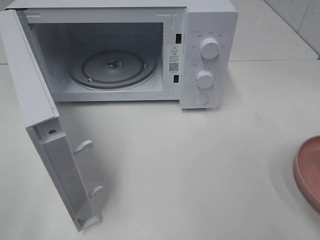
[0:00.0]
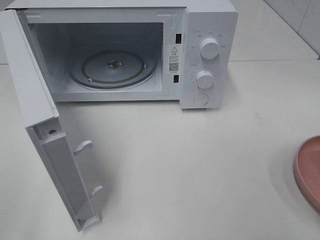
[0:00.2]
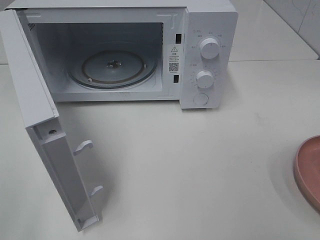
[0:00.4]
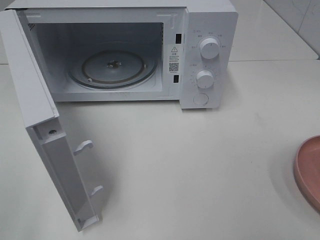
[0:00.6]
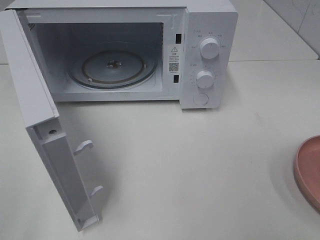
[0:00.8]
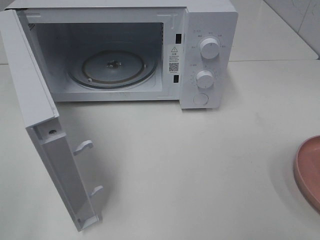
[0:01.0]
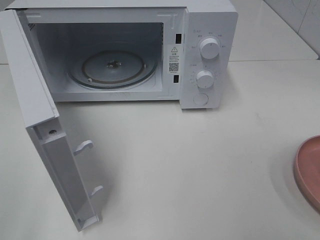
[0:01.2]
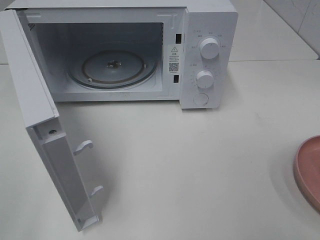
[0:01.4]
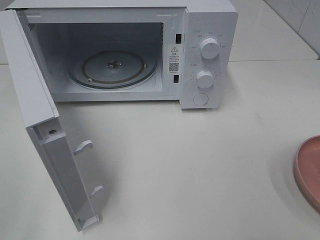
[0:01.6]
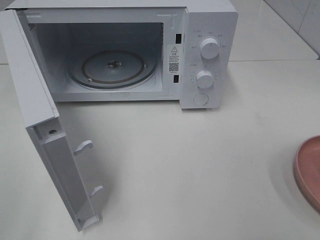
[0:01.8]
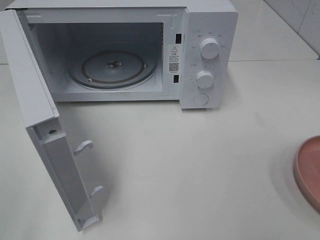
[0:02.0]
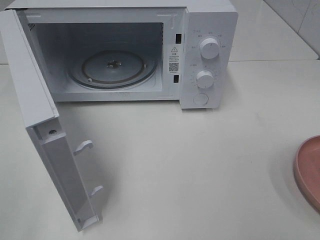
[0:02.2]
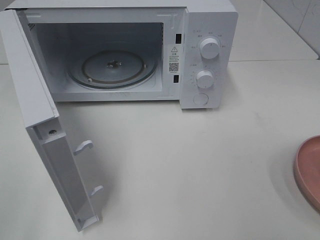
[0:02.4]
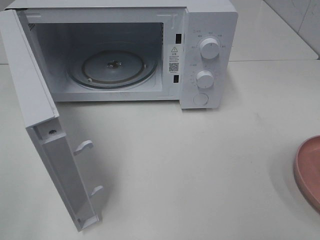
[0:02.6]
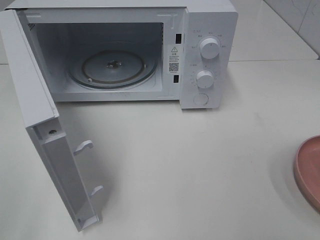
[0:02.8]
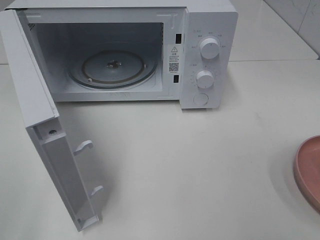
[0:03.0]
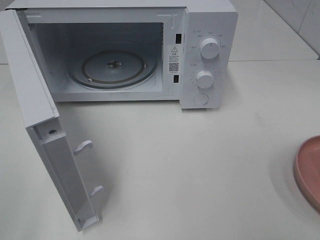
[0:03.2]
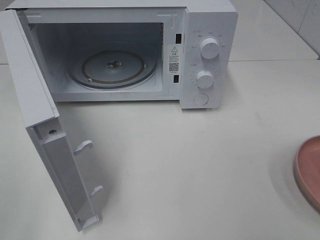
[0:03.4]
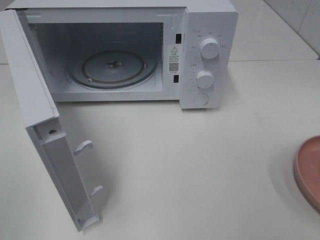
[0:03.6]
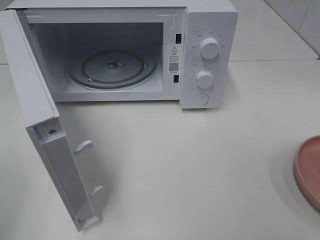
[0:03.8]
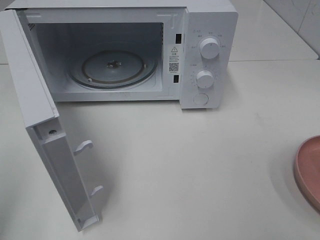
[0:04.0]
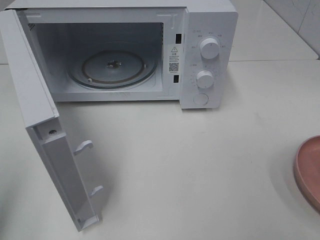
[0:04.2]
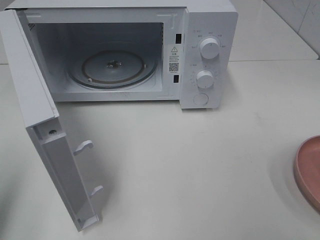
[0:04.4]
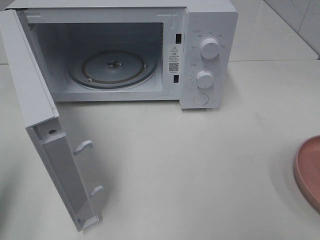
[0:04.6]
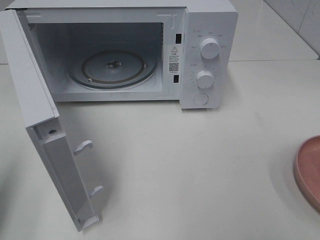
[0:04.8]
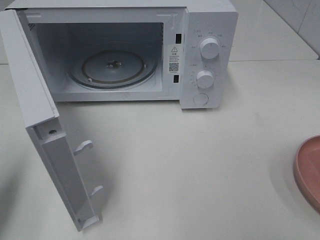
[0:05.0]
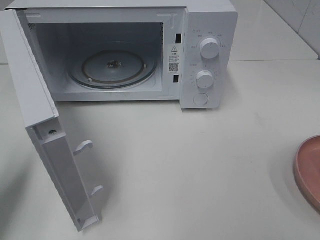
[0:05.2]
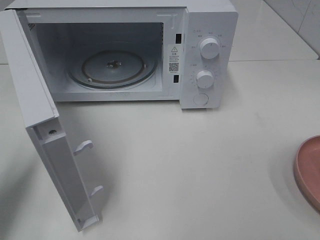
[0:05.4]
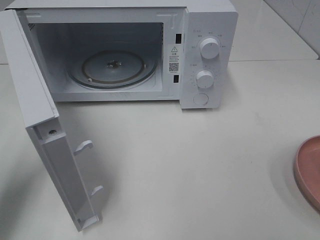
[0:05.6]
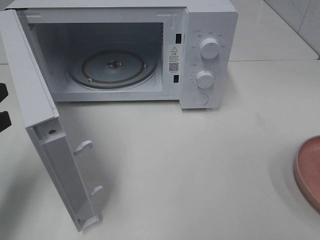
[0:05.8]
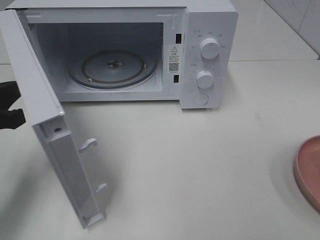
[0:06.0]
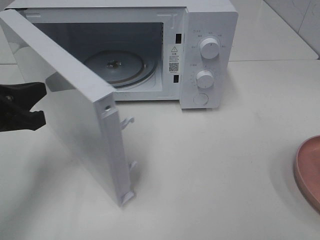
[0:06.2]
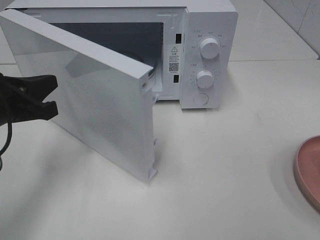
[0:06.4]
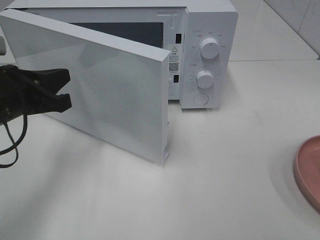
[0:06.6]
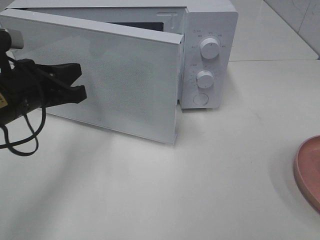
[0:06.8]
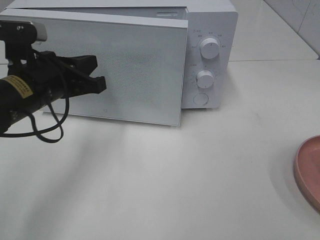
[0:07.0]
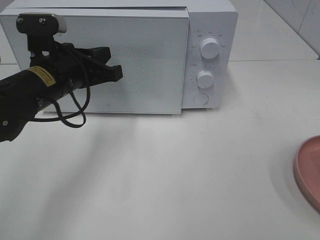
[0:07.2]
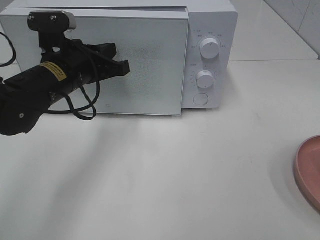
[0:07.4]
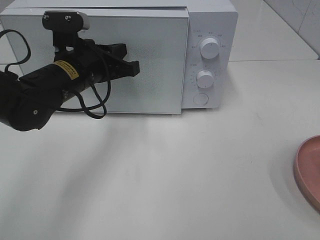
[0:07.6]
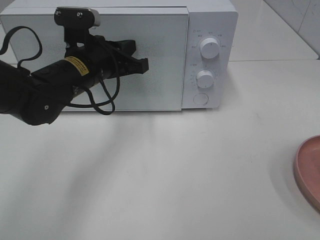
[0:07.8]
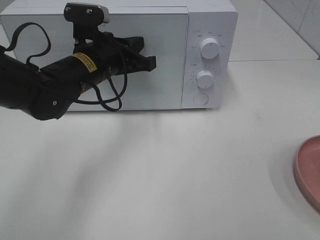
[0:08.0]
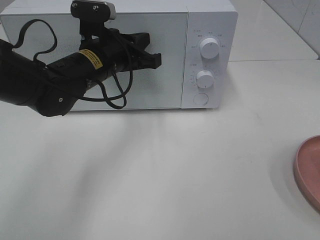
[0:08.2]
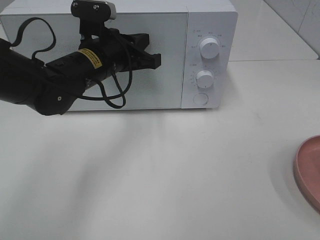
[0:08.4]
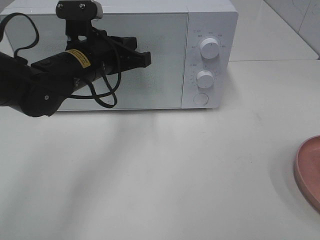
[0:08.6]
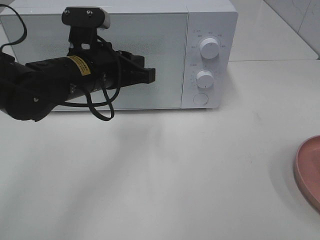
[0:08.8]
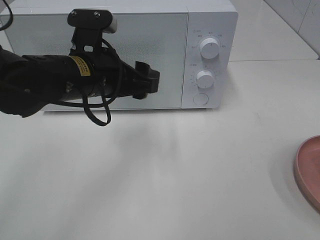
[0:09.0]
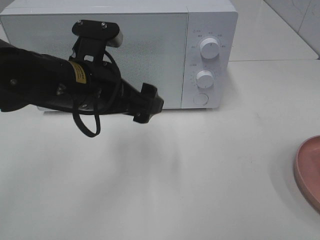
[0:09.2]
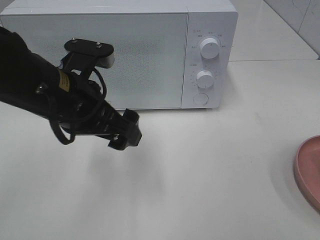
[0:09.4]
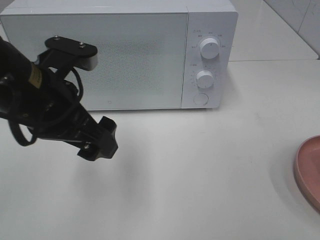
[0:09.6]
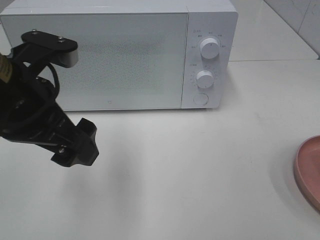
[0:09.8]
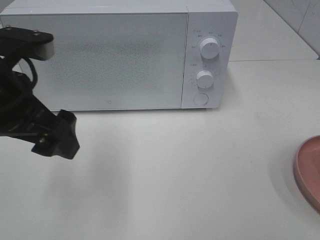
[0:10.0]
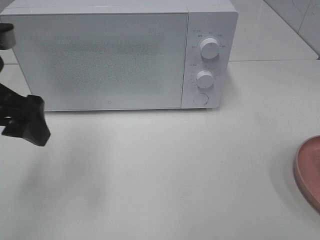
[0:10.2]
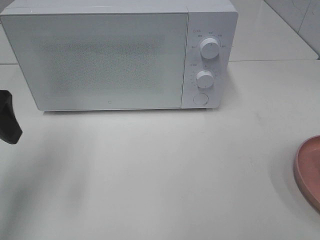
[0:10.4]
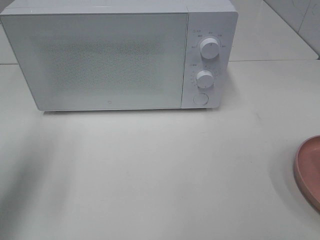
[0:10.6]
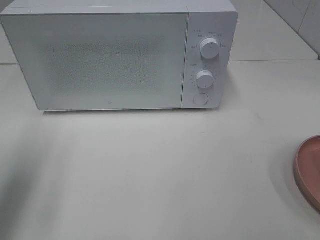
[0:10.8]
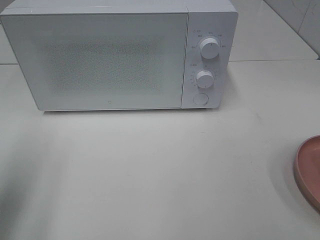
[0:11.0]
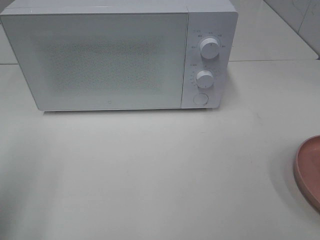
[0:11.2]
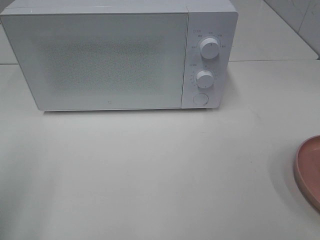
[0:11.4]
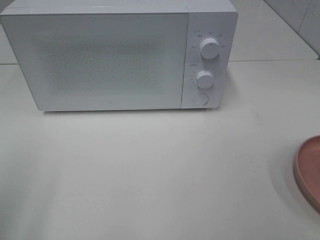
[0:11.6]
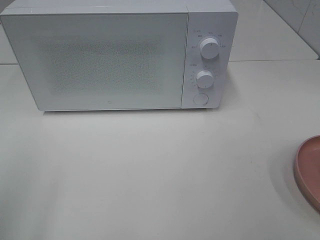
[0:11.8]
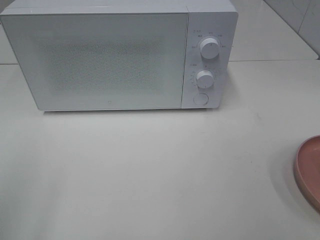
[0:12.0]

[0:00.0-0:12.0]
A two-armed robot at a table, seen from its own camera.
Task of the whole recording: Heat the burger.
Step, 0:00.0 to 0:08.8: Left hand: close the microwave door.
0:01.6 to 0:03.0: The two grippers keep their place.
0:03.0 to 0:04.4: The left gripper is displaced forward by about 10 cm, and closes.
0:04.4 to 0:06.0: The left gripper moves forward, downward and to the right, roughly 15 cm.
0:06.0 to 0:07.6: The left gripper goes approximately 20 cm to the right and forward.
0:07.6 to 0:09.0: The left gripper is displaced backward by some 5 cm, and opens up.
0:09.0 to 0:10.4: The left gripper heads to the left, covering roughly 15 cm.
0:10.4 to 0:12.0: The left gripper moves backward, approximately 15 cm.

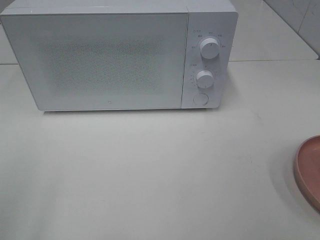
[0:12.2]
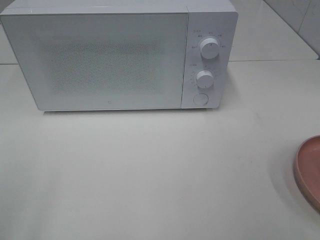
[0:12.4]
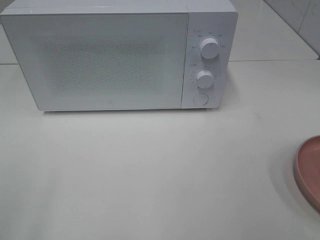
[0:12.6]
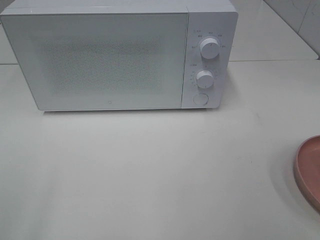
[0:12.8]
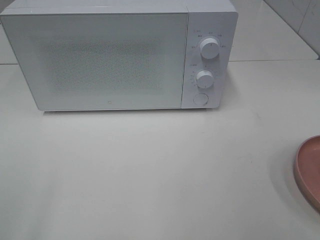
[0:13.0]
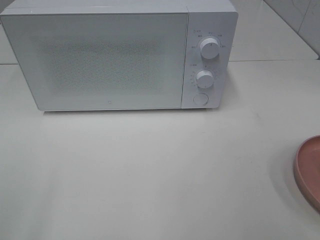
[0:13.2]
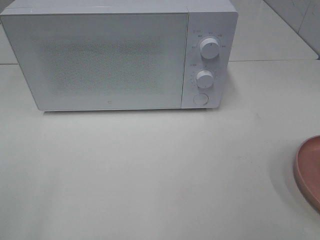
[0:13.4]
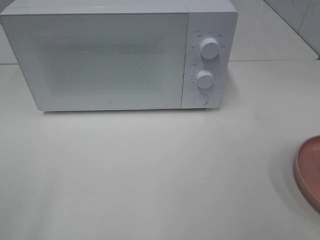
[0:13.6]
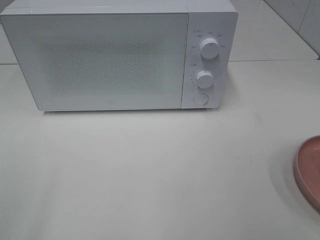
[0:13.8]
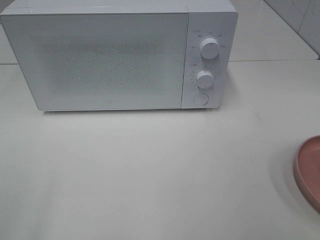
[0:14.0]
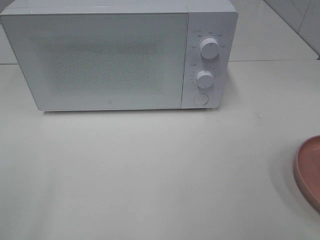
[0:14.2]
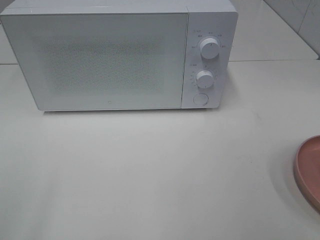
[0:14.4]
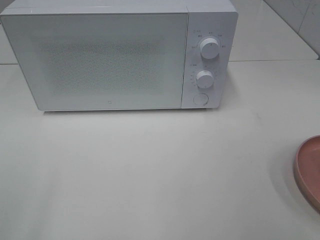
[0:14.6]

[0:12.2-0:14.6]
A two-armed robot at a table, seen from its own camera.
Task of the whole recording: Heat the burger.
0:13.4 to 0:14.6: The two grippers keep their place.
